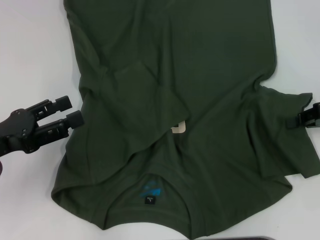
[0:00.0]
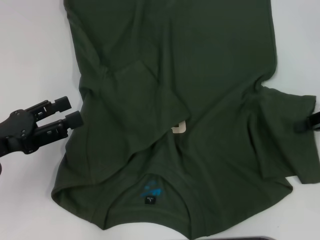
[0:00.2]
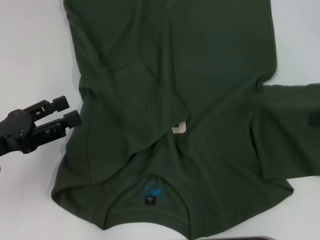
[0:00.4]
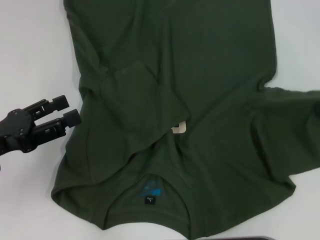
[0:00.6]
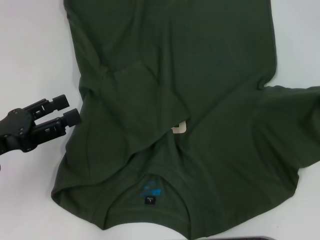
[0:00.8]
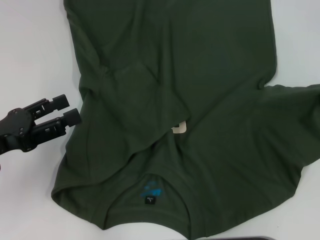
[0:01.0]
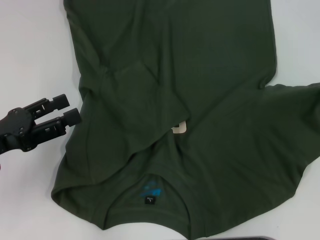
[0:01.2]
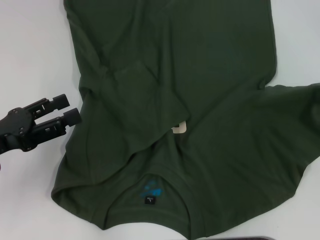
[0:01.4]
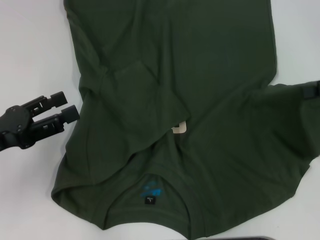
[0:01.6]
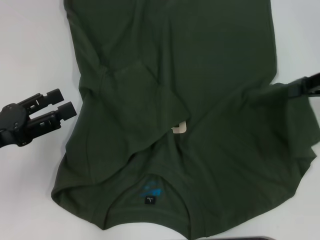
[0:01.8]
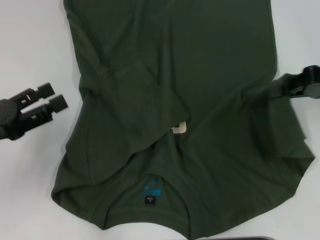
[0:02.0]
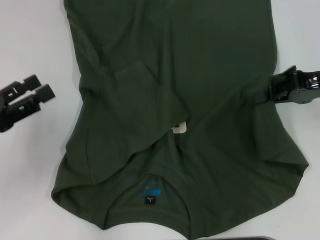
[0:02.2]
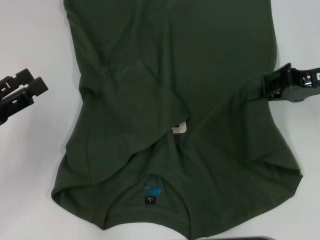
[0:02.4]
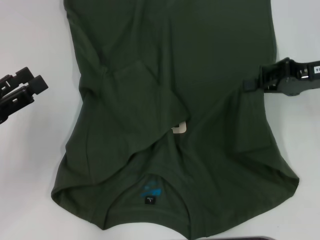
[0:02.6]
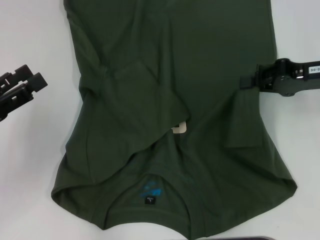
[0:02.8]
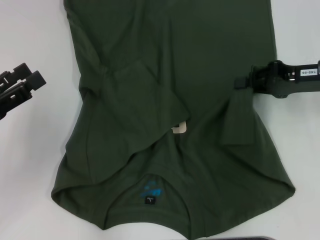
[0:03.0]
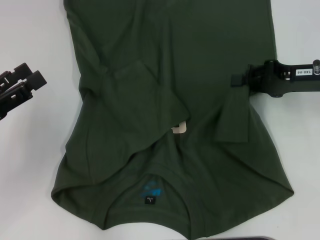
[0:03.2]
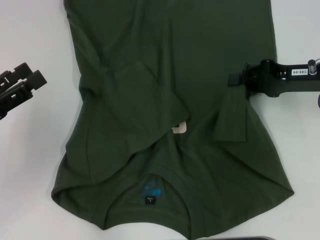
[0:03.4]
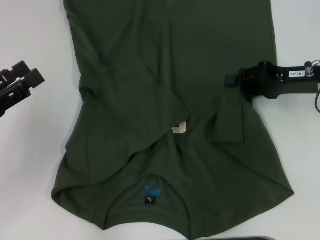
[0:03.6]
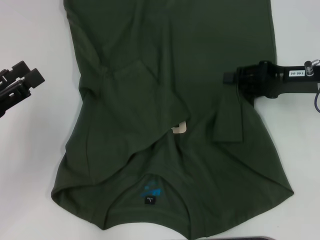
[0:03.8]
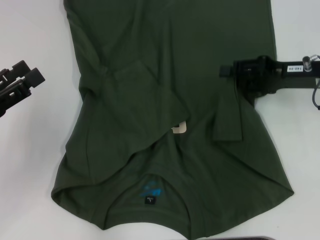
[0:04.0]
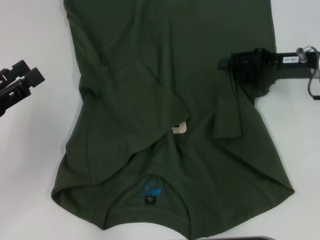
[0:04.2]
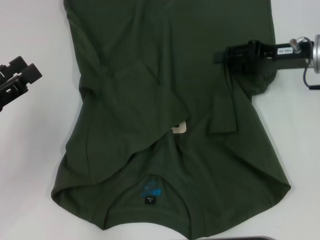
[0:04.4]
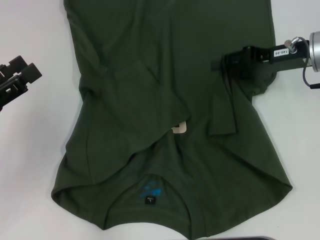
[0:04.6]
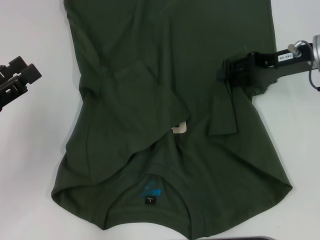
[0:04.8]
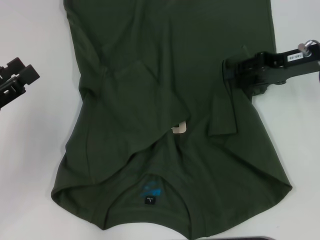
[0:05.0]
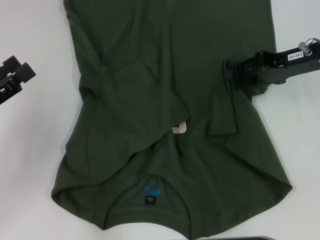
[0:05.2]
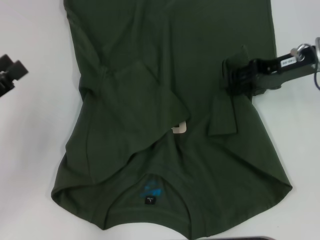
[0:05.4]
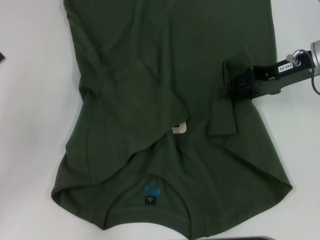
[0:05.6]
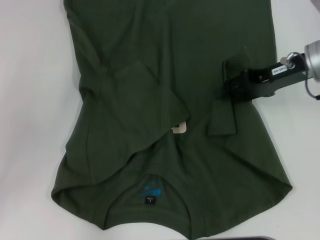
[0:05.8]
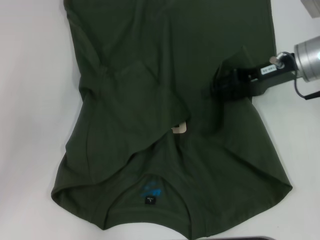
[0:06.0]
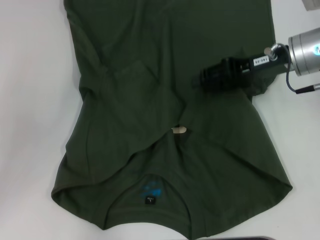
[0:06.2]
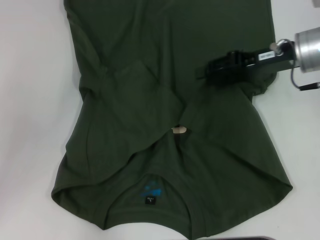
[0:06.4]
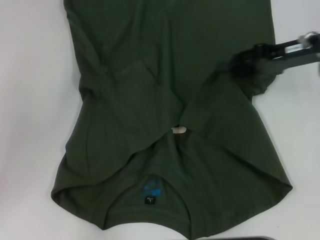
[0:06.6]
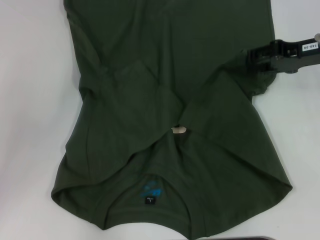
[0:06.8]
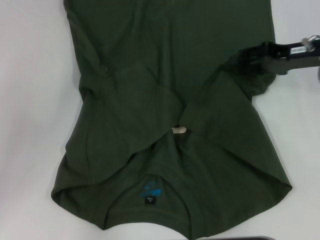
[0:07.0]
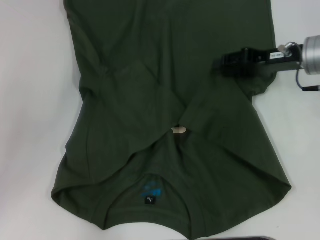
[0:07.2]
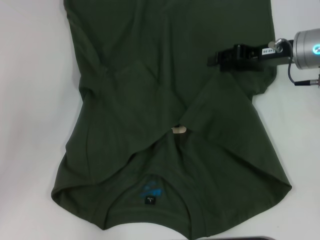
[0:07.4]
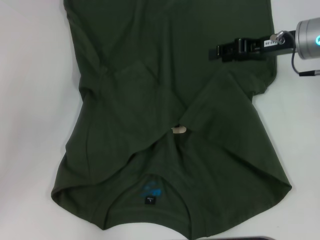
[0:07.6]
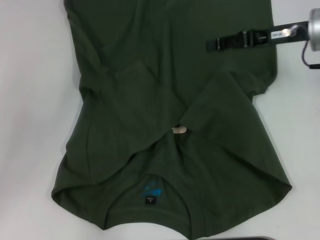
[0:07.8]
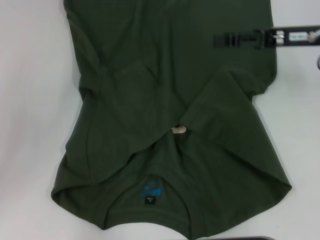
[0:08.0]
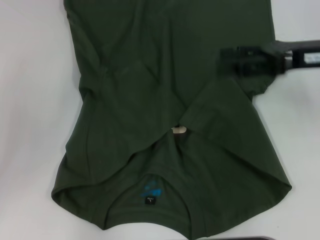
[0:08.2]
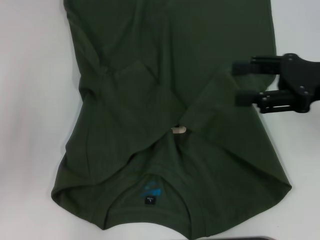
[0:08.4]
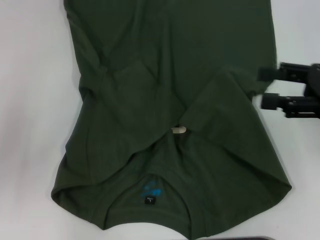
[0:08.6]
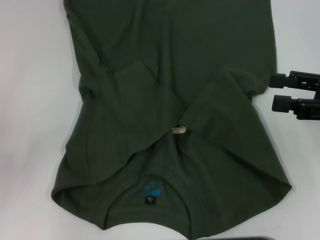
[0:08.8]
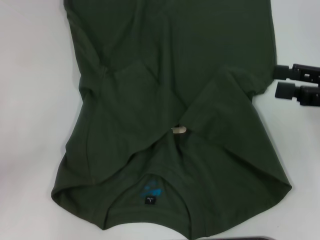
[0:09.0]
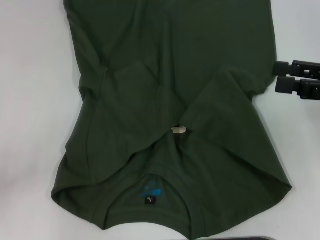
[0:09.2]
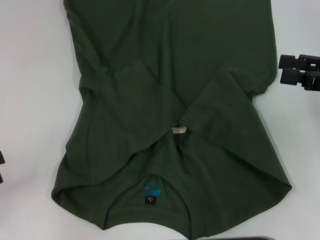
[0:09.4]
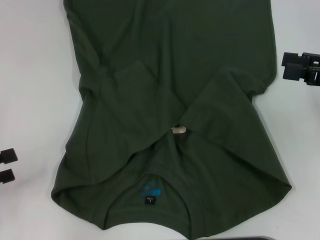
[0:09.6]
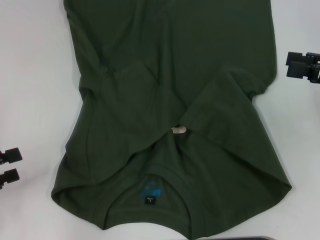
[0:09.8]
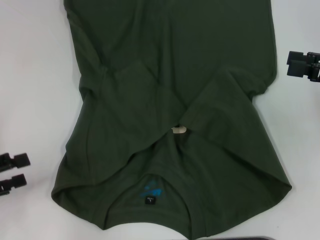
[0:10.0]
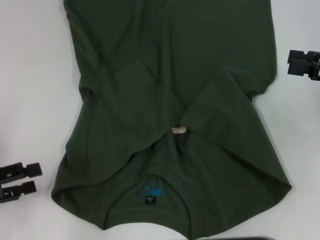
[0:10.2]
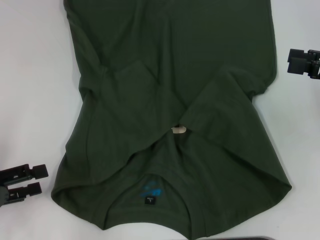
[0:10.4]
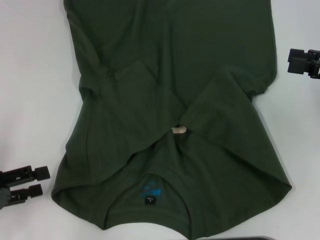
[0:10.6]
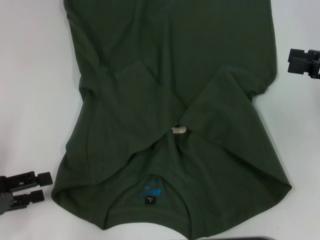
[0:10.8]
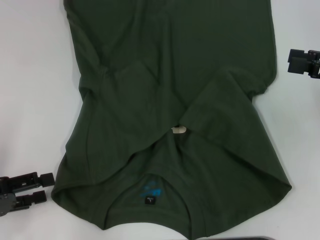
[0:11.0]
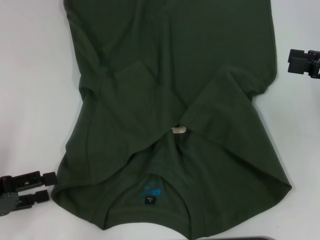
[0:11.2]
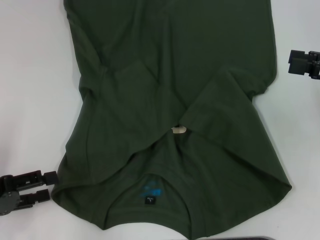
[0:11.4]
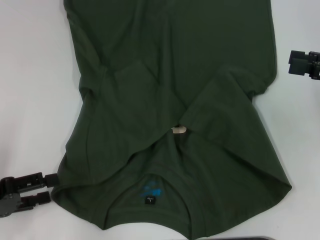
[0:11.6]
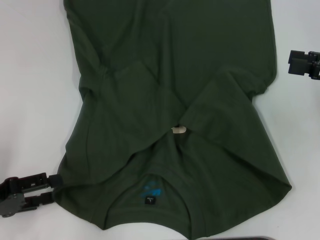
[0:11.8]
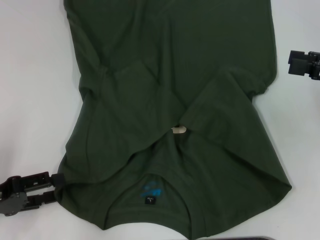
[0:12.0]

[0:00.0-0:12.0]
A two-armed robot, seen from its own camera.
Step, 0:00.0 to 0:07.0: Fold the bottom right sleeve with your right hand.
0:00.0 to 0:01.6: The right gripper is displaced upward by about 5 cm.
0:01.6 to 0:03.0: The right gripper travels to the left by some 5 cm.
0:03.0 to 0:04.4: The right gripper opens up.
0:04.4 to 0:07.6: The grippers move only a little.
0:07.6 to 0:09.0: The right gripper goes approximately 15 cm backward and to the right. The left gripper is displaced to the left by about 5 cm.
0:09.0 to 0:10.4: The left gripper heads to the right, covering some 5 cm.
0:10.4 to 0:12.0: The grippers stay close to where they were, moving slightly.

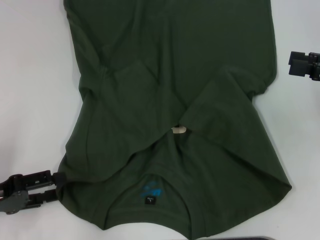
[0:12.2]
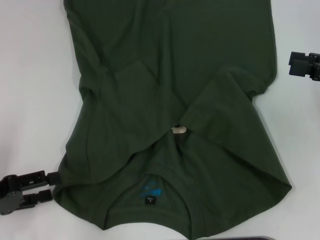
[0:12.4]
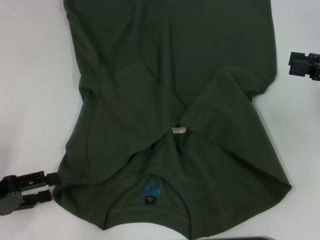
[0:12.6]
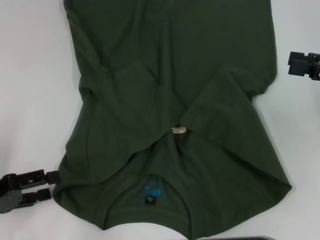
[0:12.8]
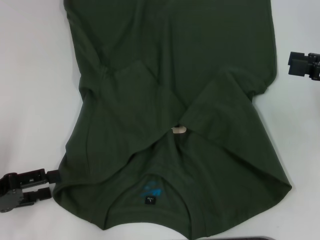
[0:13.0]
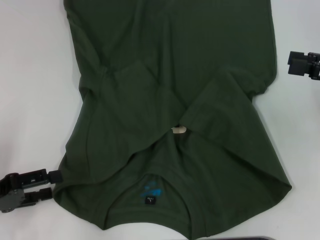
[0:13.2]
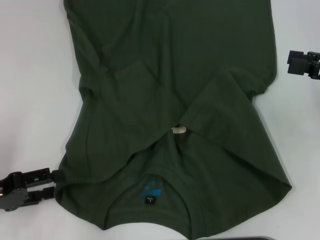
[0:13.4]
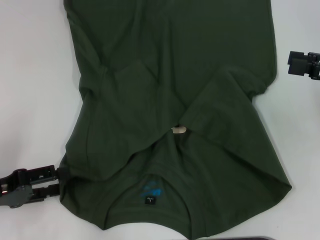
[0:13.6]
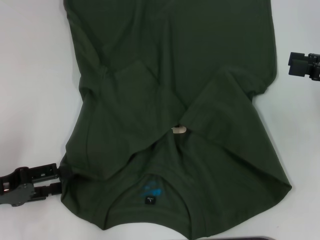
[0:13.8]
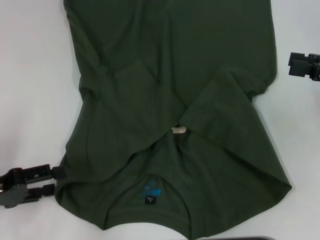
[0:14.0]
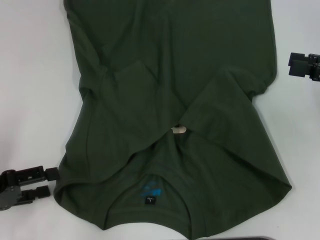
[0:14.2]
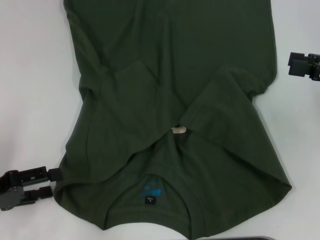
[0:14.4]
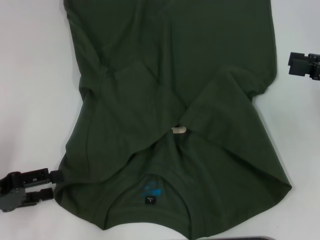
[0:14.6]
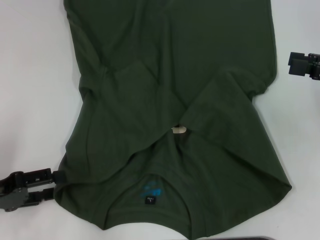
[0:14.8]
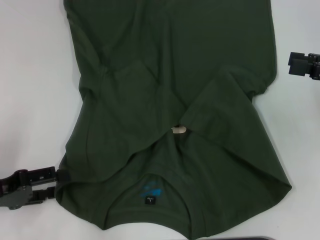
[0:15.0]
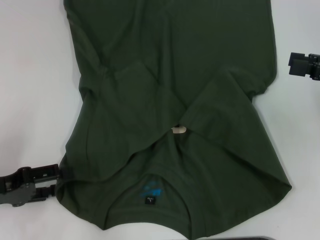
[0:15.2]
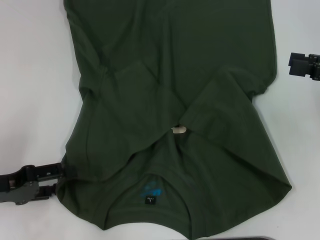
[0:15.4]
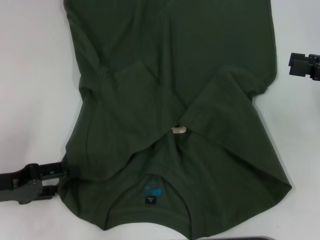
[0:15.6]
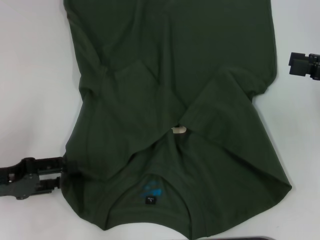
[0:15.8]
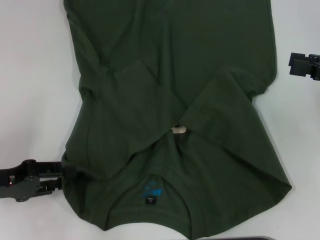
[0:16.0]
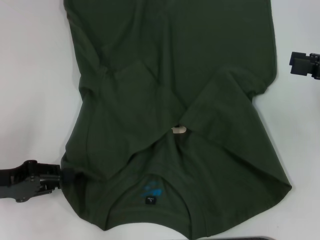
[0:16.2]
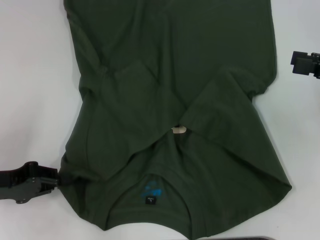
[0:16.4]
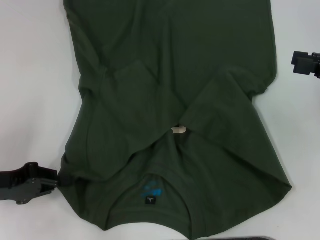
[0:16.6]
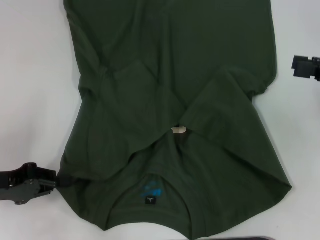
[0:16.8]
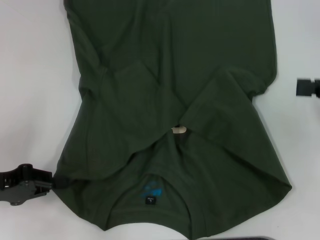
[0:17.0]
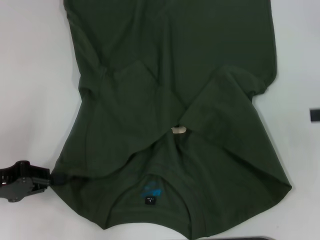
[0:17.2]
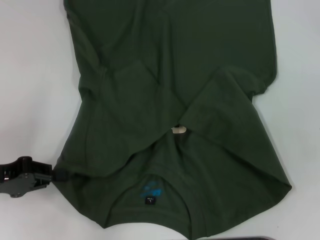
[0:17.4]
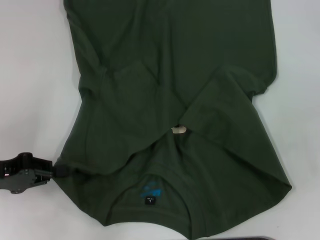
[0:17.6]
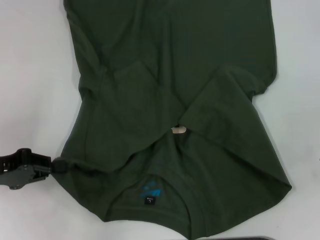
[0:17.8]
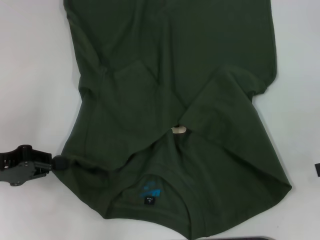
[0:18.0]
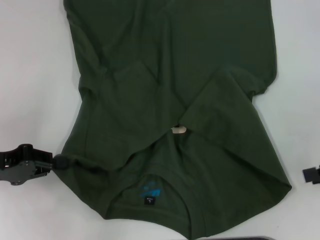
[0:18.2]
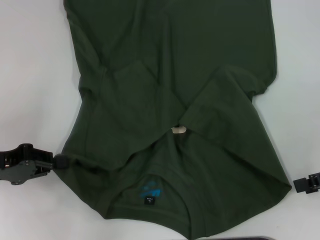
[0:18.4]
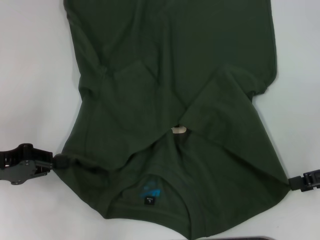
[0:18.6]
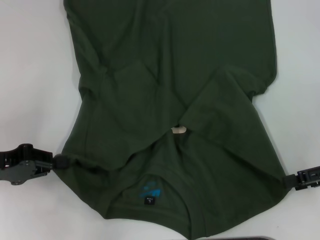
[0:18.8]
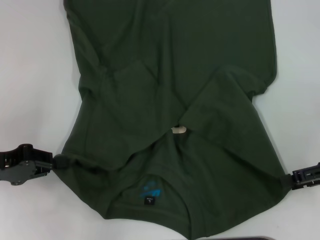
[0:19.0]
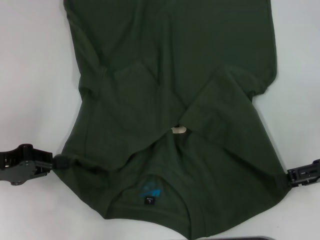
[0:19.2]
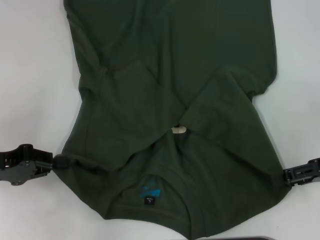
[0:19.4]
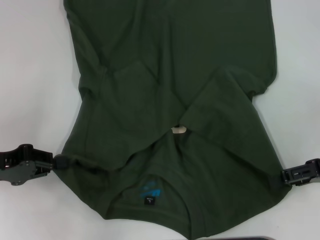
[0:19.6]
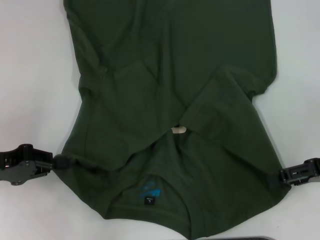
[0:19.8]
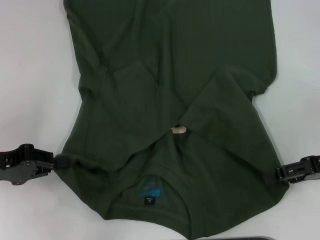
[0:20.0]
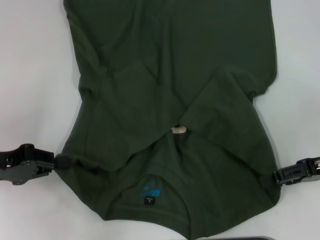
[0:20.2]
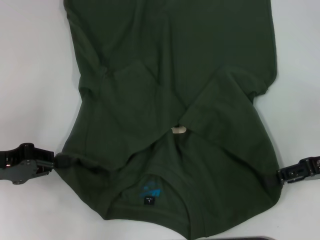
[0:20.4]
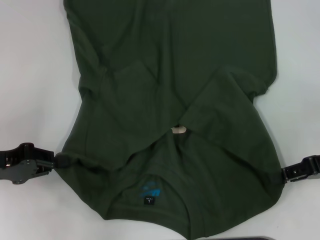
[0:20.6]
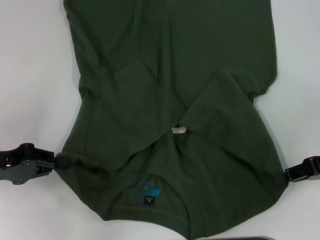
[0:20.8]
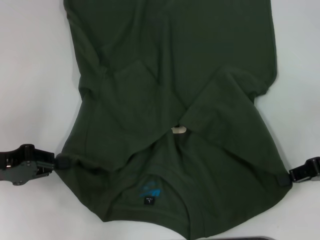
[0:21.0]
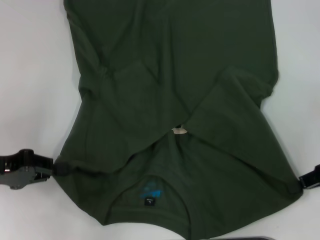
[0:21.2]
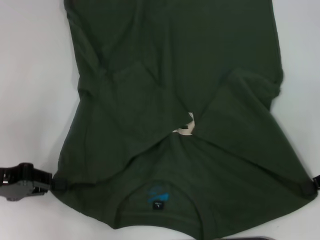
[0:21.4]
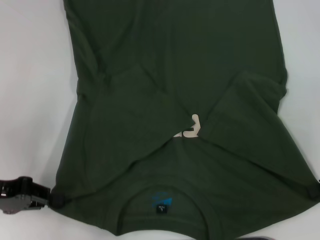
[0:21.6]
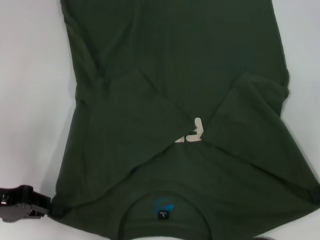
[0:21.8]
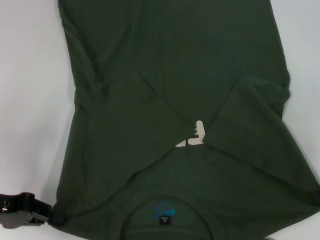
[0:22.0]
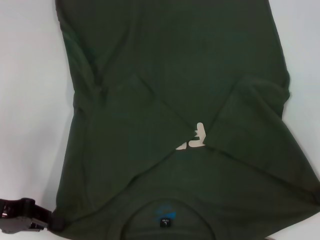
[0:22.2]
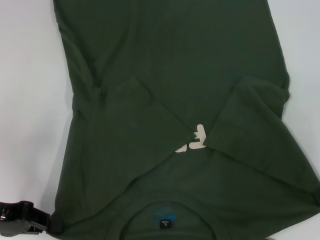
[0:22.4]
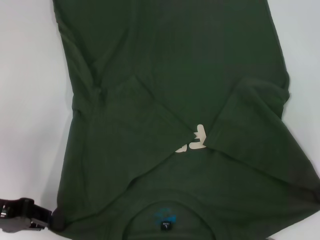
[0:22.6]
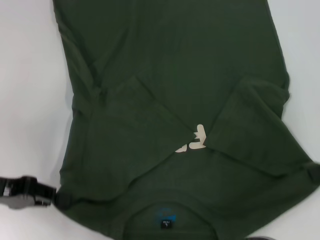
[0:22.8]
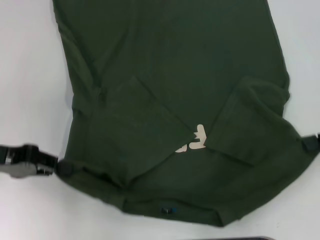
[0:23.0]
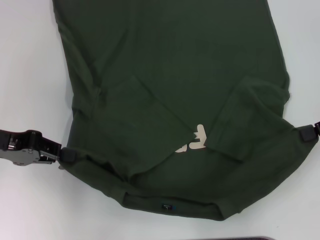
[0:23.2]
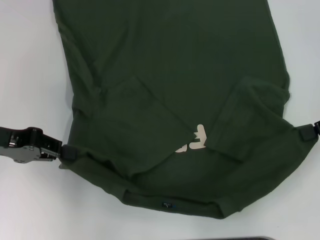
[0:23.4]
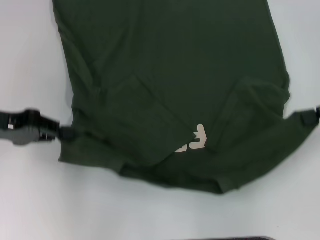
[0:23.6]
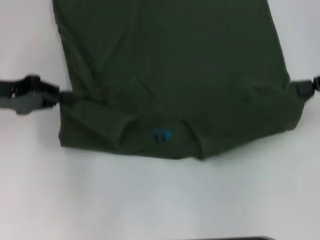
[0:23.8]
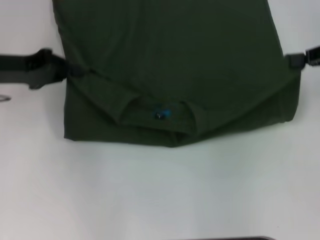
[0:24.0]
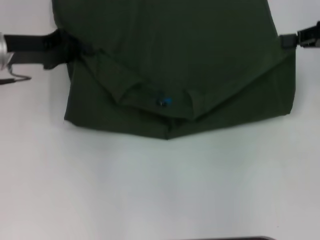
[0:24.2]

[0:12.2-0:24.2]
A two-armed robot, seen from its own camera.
Step, 0:12.2 to 0:16.6: Grab the bottom left corner with your left hand.
Step, 0:16.8 to 0:20.6: Grab the bottom right corner with your right hand.
0:12.2 to 0:13.8: The two grippers keep their place.
0:15.2 to 0:16.6: The left gripper closes.
0:16.6 to 0:18.2: The right gripper moves approximately 5 cm.
0:18.2 to 0:19.8: The right gripper ends up about 5 cm from where it was.
0:19.8 to 0:21.2: The right gripper closes its fingers.
0:21.2 to 0:22.6: The grippers move only a little.
0:22.6 to 0:24.2: The right gripper shifts about 10 cm forward and upward. Meanwhile the left gripper is displaced forward by roughly 15 cm.
